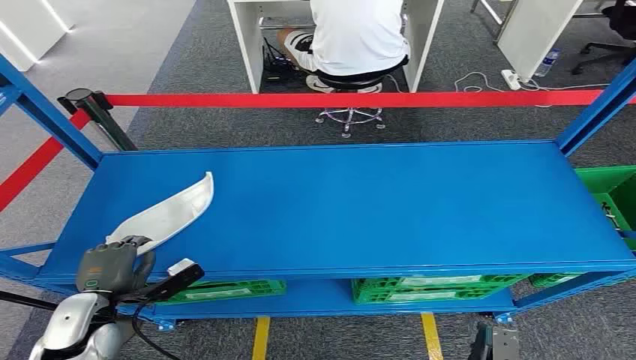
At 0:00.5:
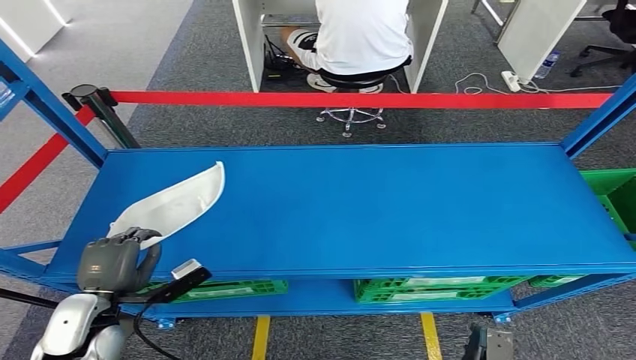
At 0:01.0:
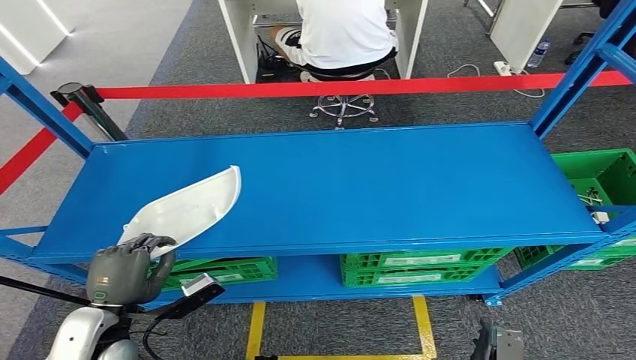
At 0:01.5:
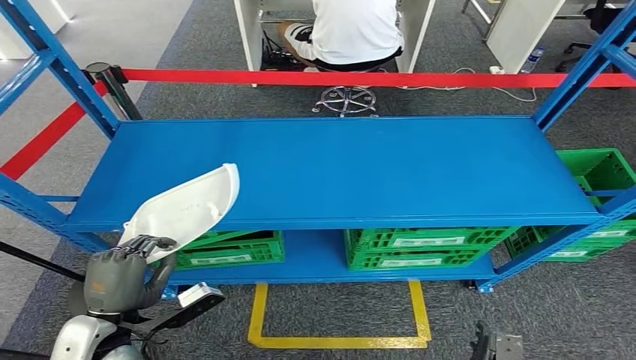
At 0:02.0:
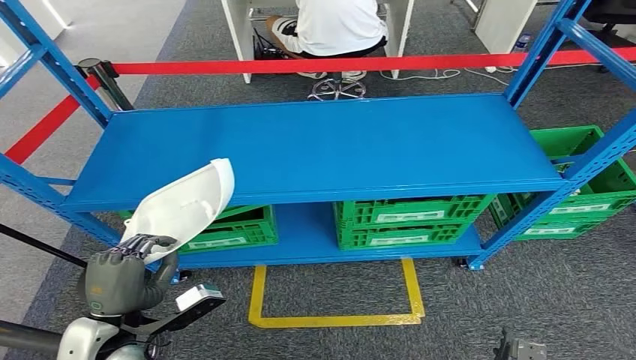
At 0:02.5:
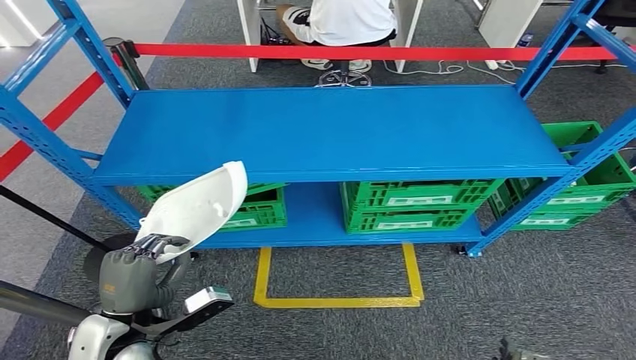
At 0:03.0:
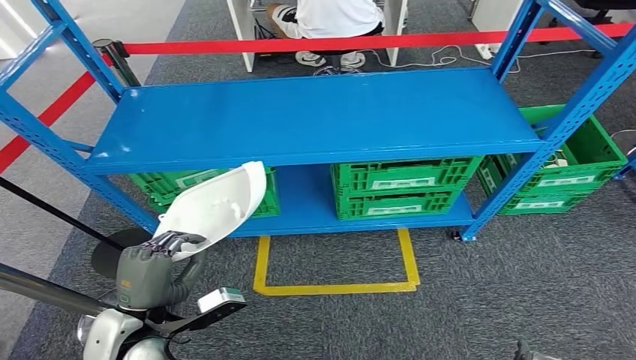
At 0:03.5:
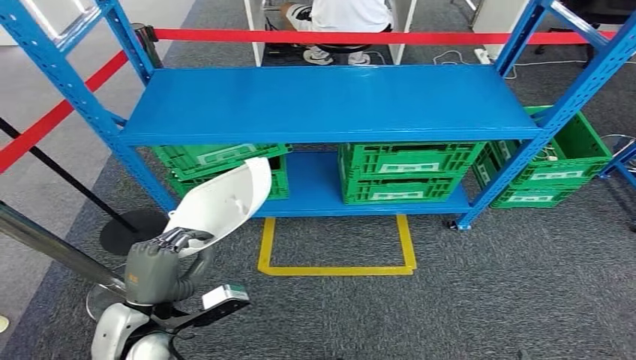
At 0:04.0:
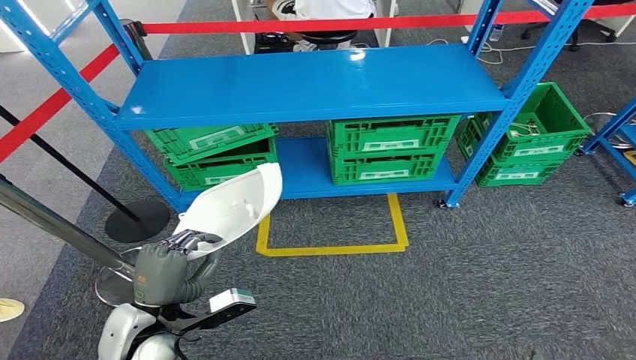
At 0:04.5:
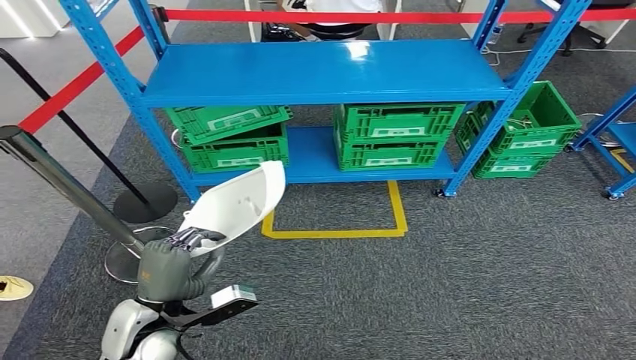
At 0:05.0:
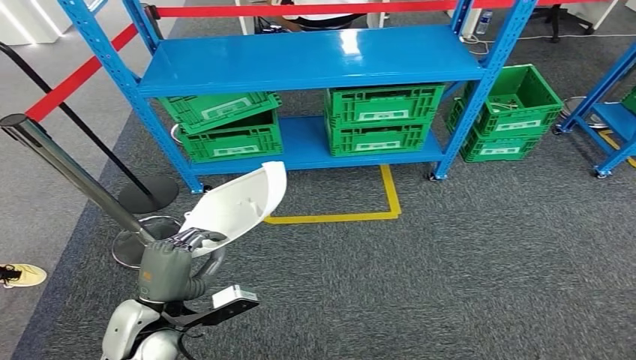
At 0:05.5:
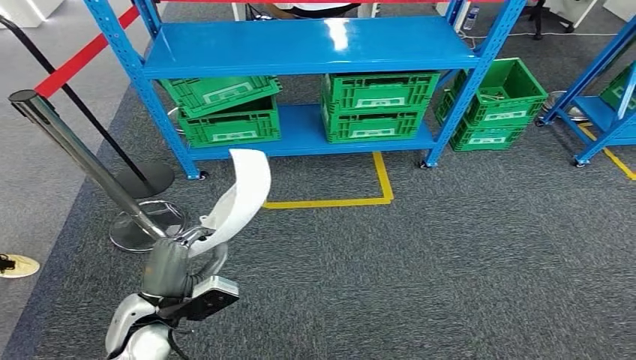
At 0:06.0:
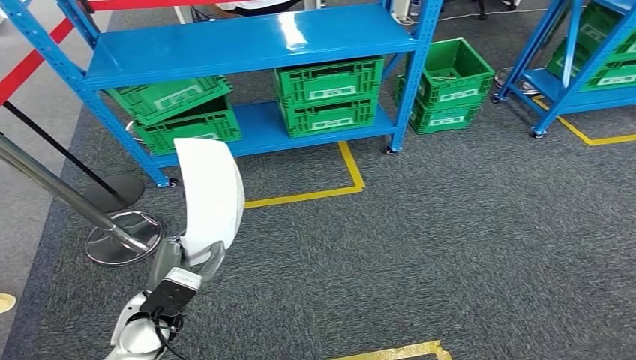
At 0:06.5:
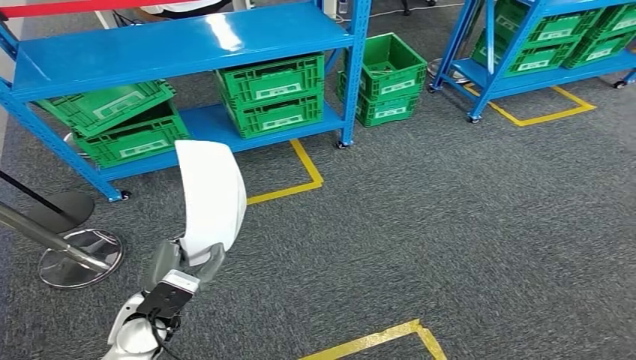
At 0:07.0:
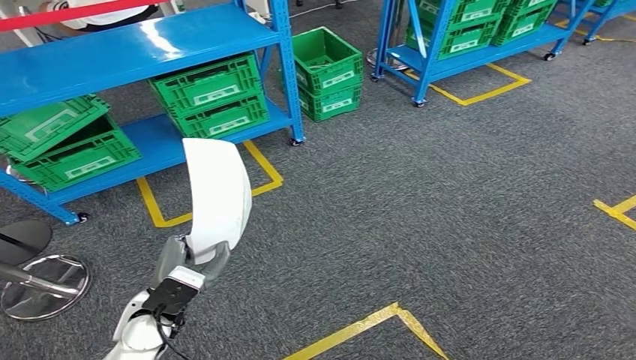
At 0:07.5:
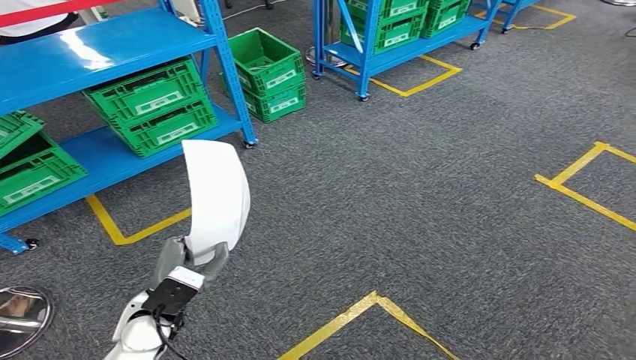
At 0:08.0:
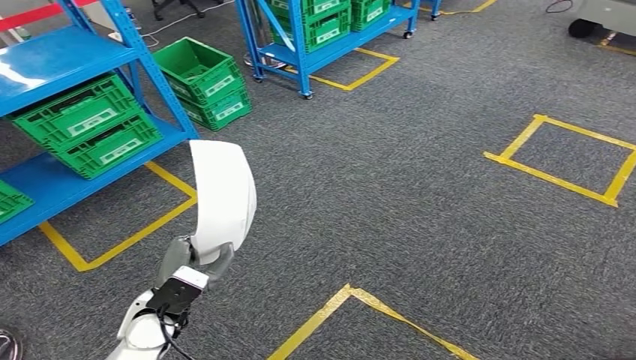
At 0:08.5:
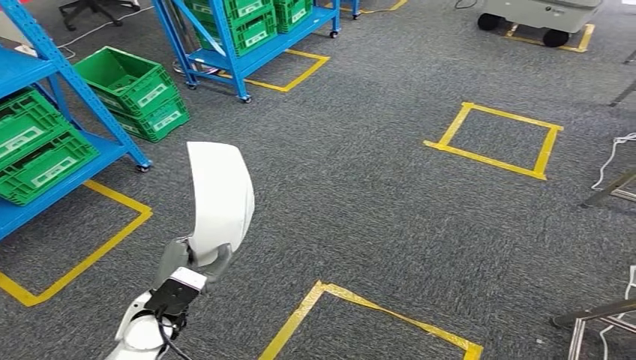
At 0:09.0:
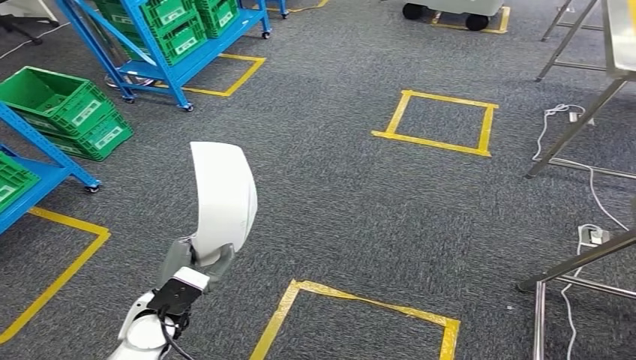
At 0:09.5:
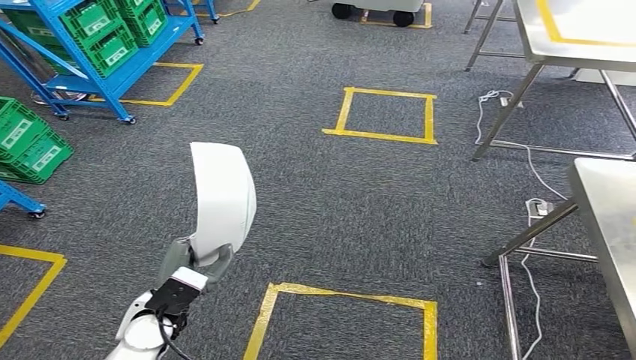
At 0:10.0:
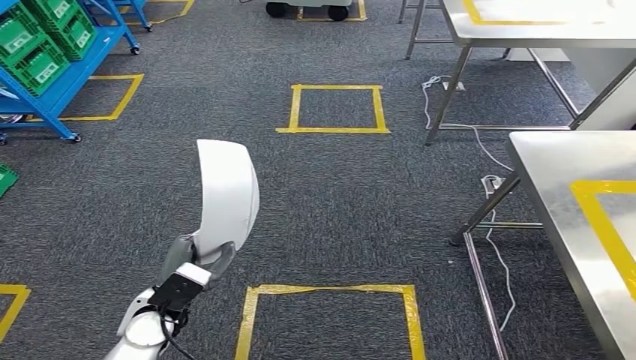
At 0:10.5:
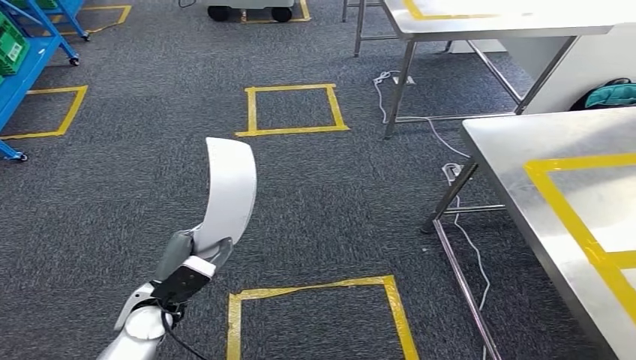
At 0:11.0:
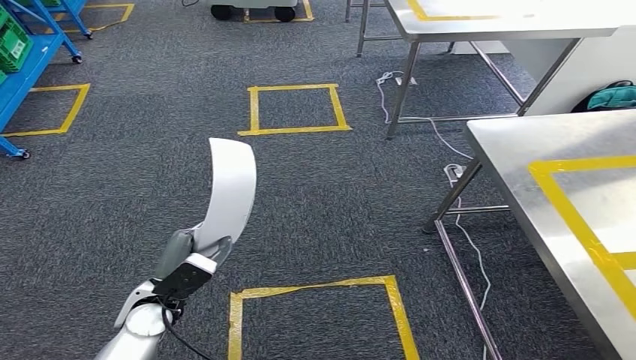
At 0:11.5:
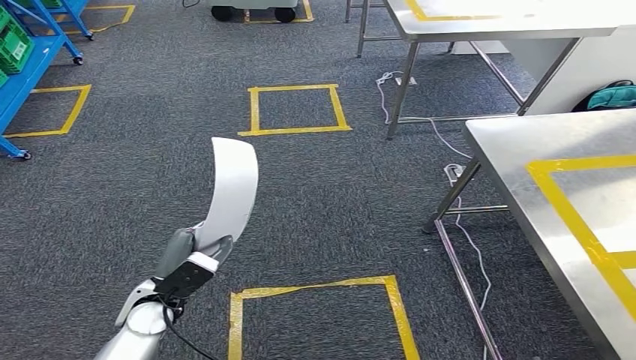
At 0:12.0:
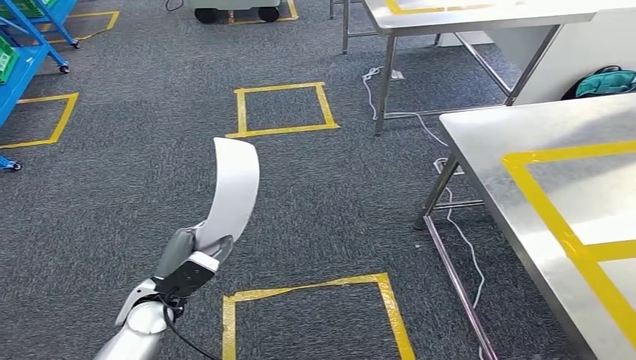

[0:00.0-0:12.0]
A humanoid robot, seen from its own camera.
Step, 0:00.0 to 0:02.0: Pick up the small component from the shelf.

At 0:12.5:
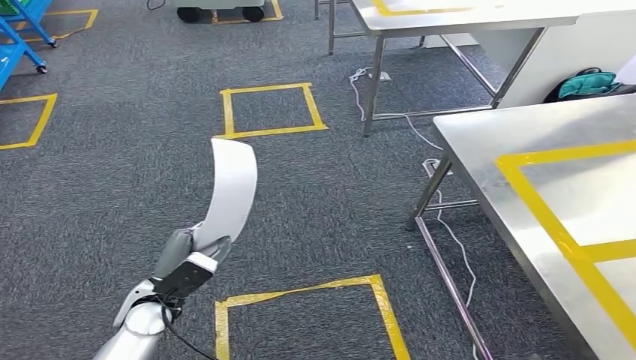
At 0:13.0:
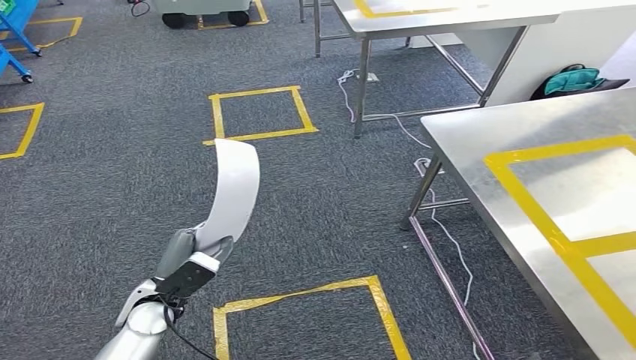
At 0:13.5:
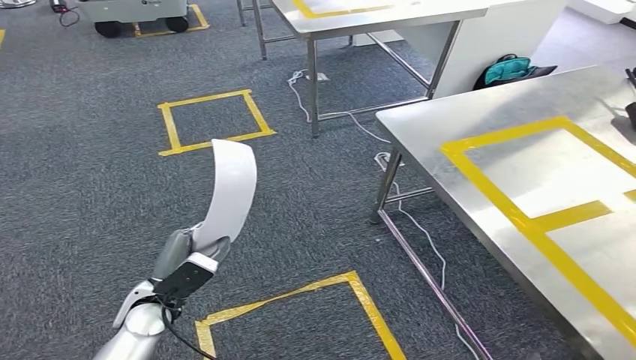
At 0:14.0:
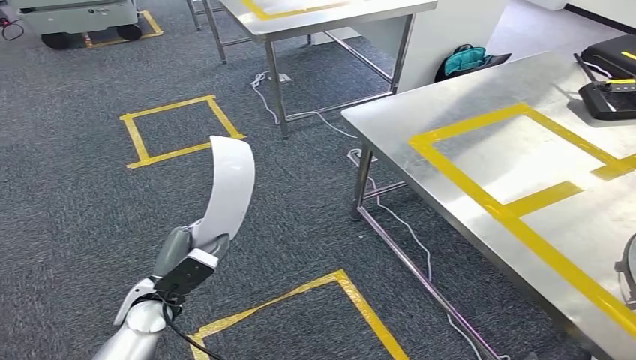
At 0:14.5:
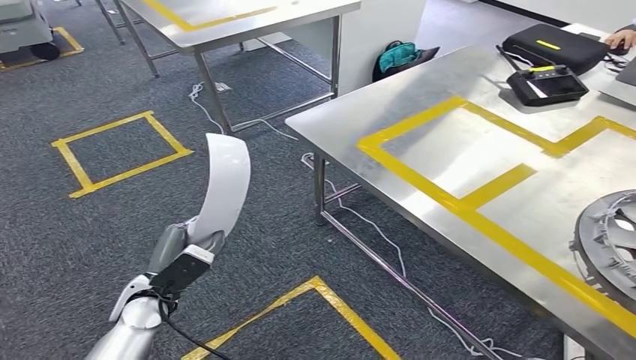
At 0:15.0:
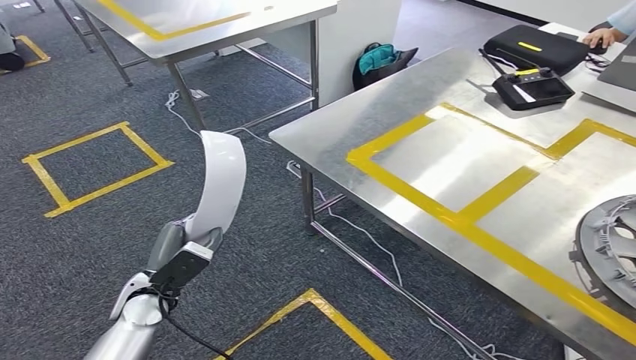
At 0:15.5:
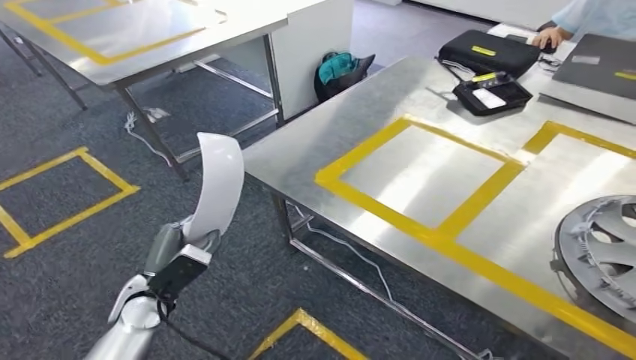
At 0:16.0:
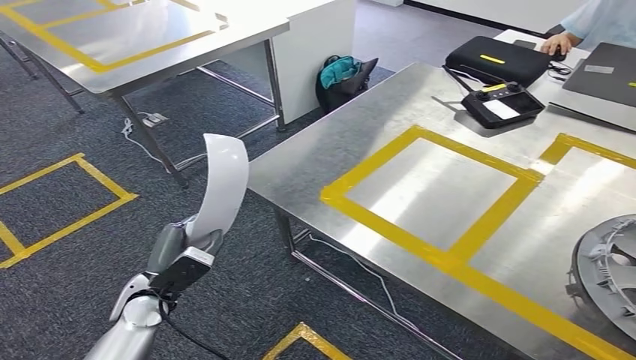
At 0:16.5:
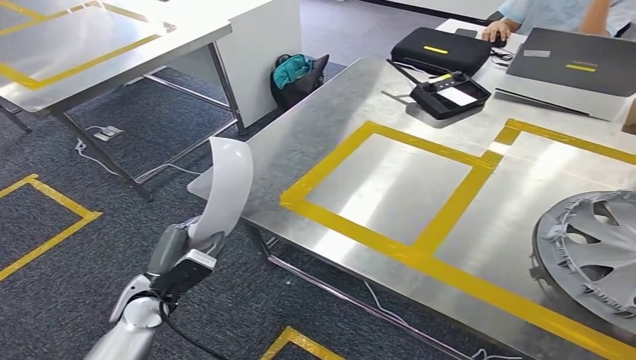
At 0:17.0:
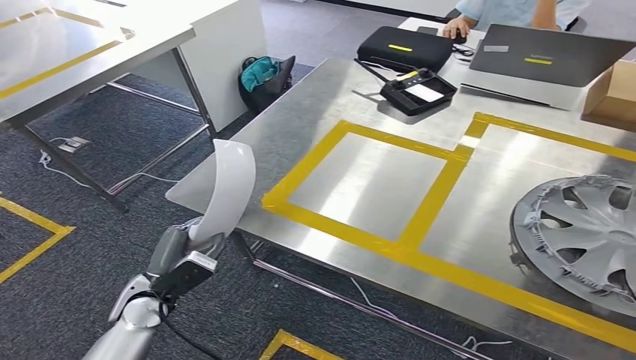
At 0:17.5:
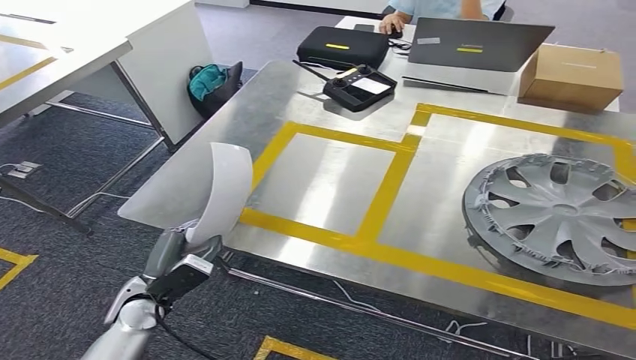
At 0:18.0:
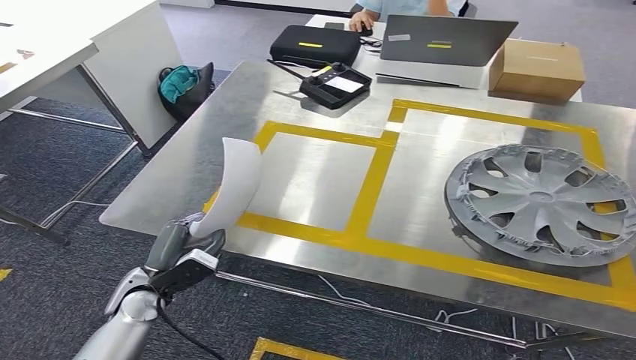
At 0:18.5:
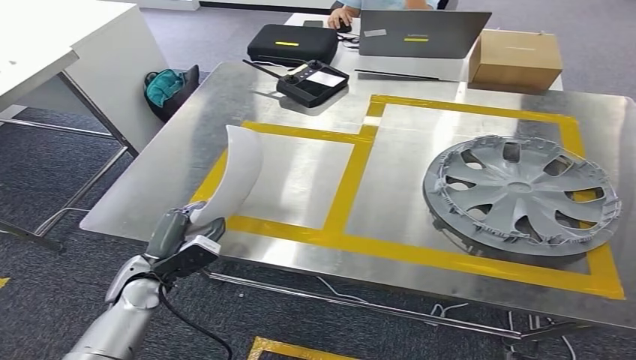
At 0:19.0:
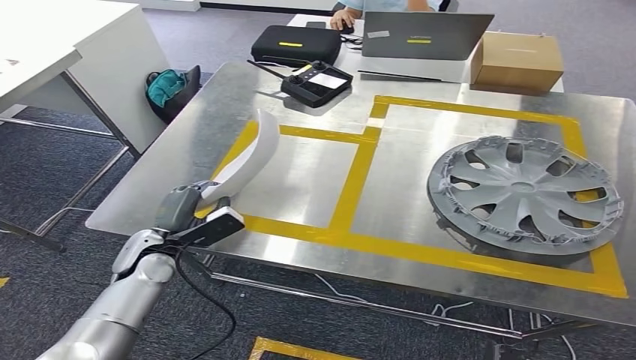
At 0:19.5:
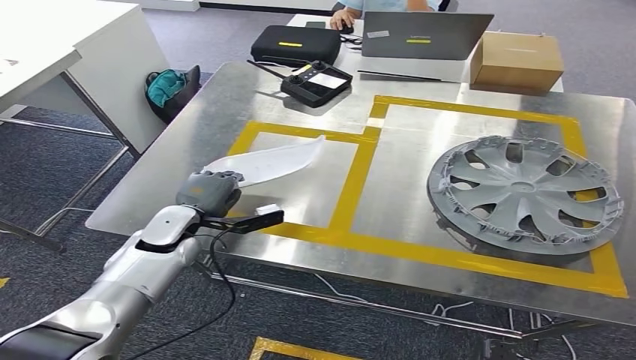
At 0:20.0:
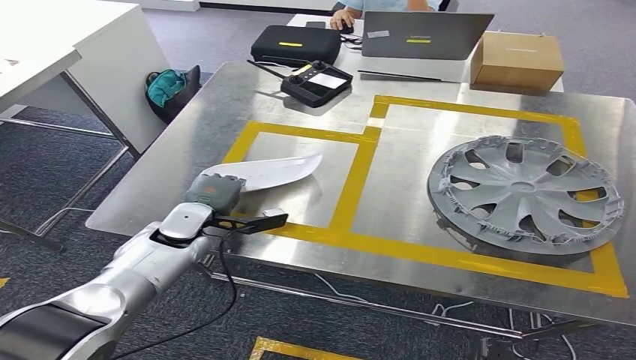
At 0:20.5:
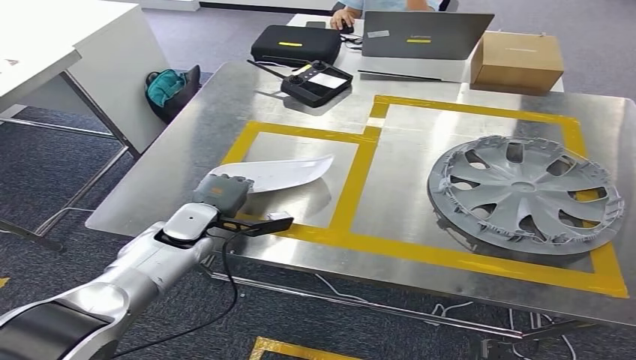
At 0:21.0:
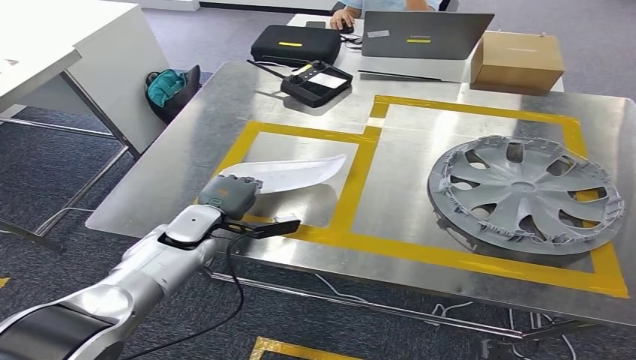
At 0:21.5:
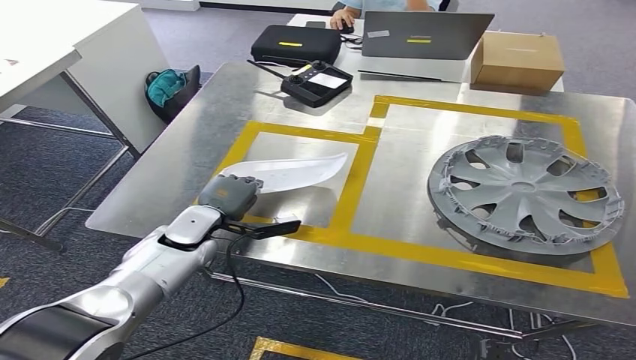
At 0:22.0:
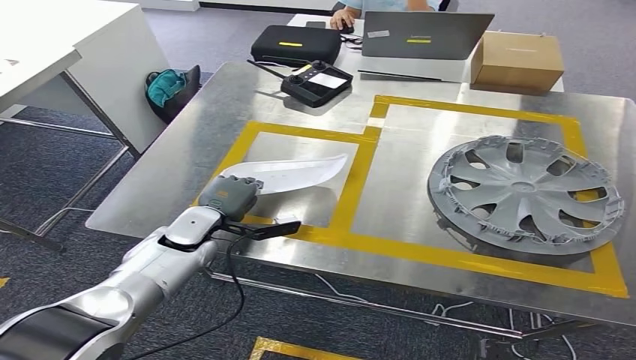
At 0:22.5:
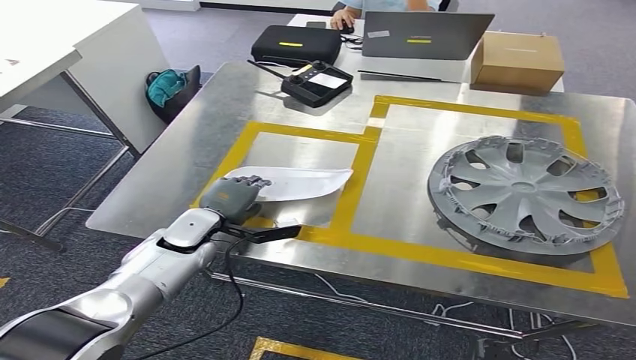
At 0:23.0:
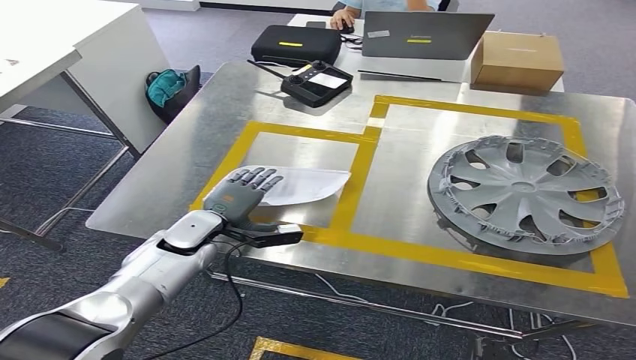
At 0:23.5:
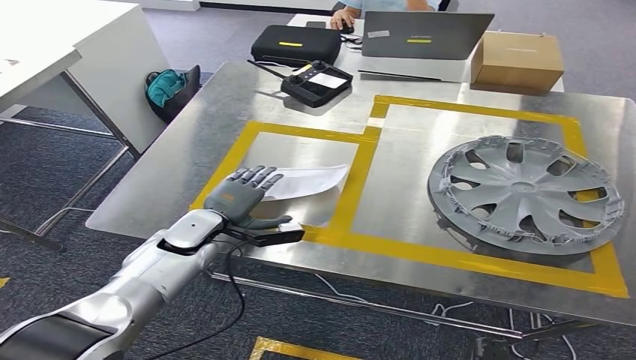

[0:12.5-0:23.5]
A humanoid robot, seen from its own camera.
Step, 0:12.5 to 0:16.0: Move the small component to the workbench.
0:20.0 to 0:23.5: The hands stay close to where they were, moving slightly.
